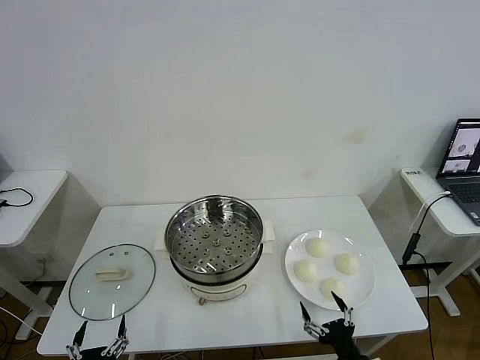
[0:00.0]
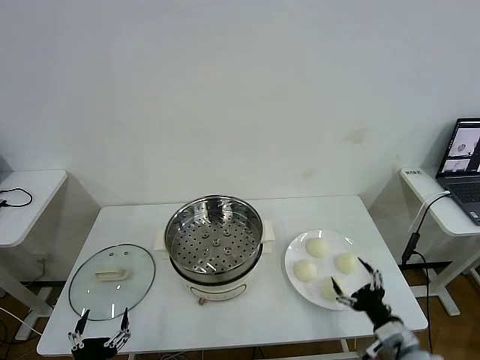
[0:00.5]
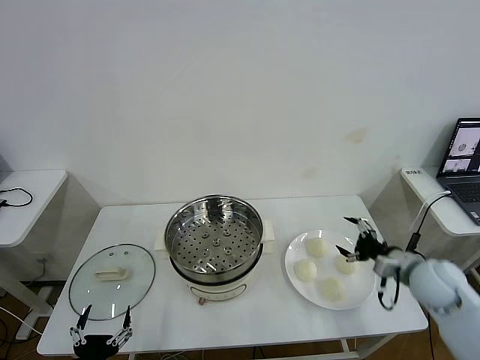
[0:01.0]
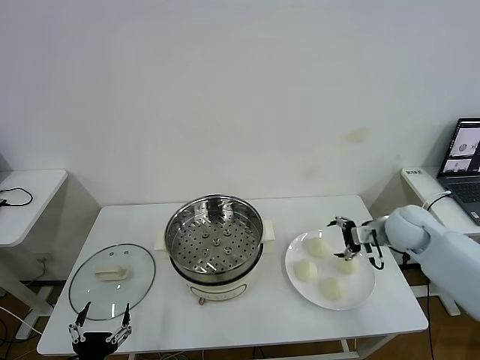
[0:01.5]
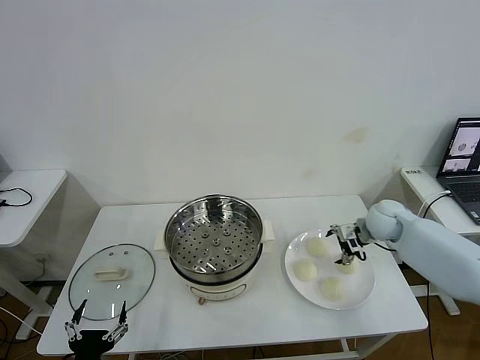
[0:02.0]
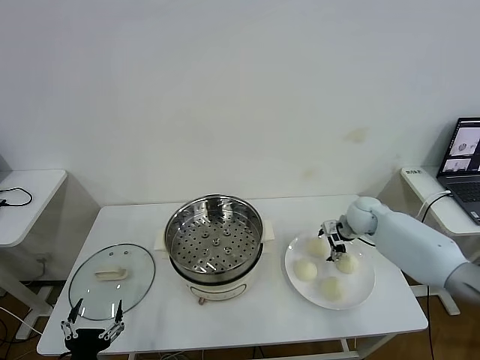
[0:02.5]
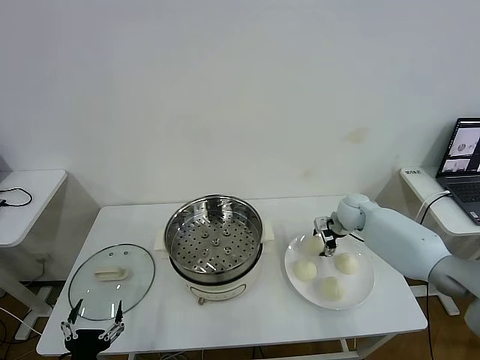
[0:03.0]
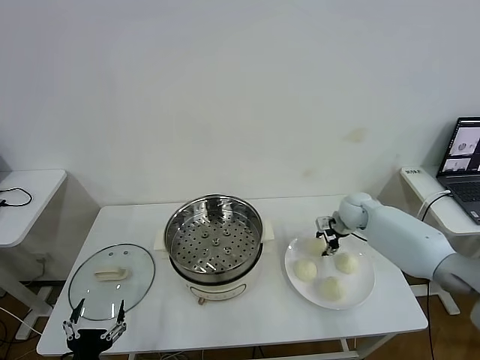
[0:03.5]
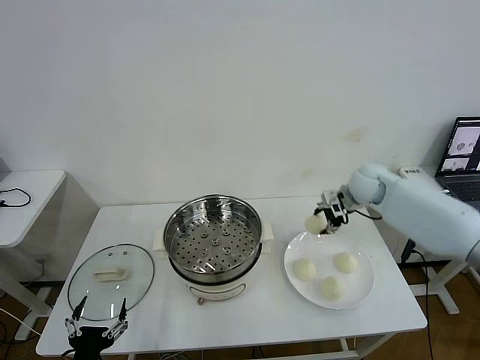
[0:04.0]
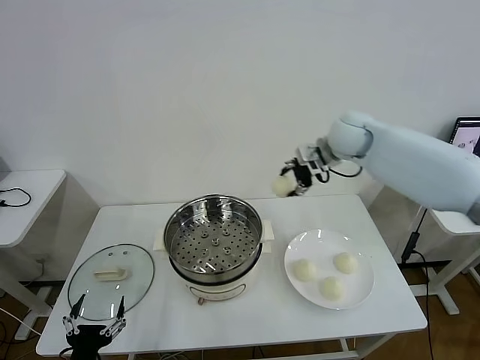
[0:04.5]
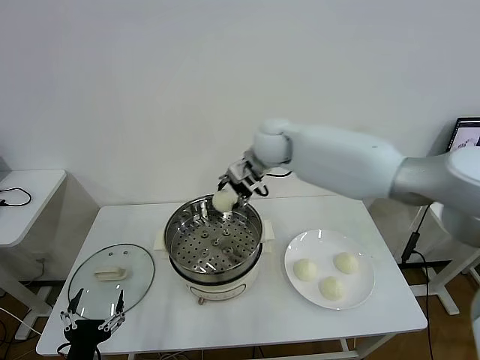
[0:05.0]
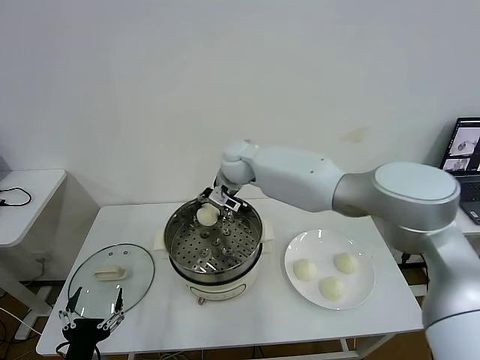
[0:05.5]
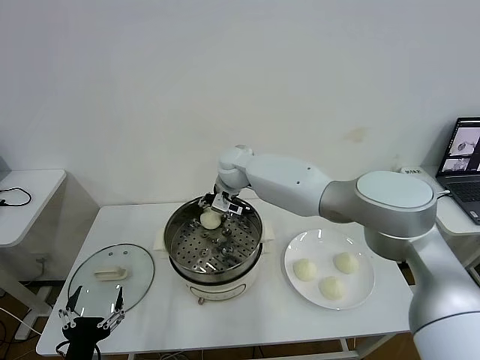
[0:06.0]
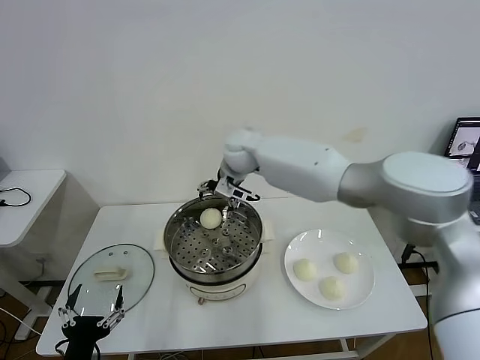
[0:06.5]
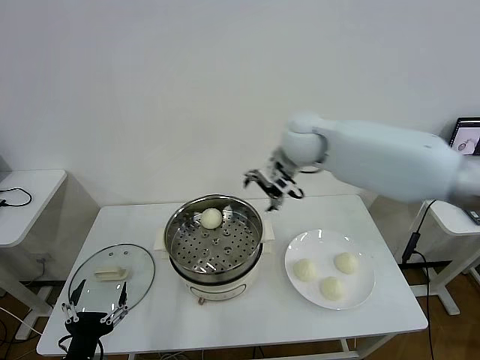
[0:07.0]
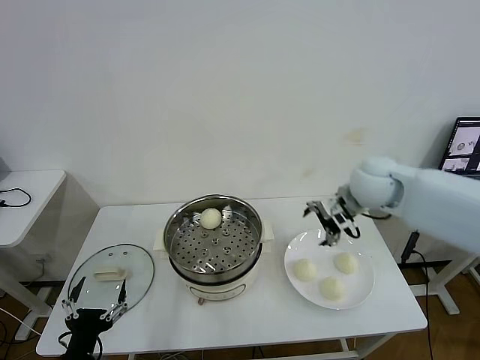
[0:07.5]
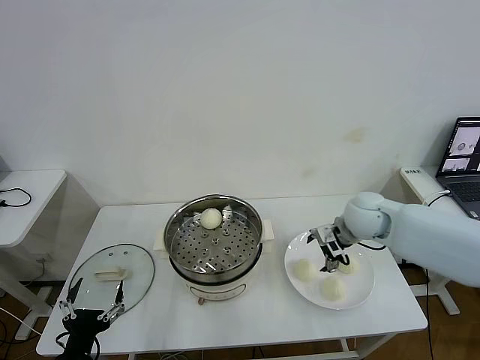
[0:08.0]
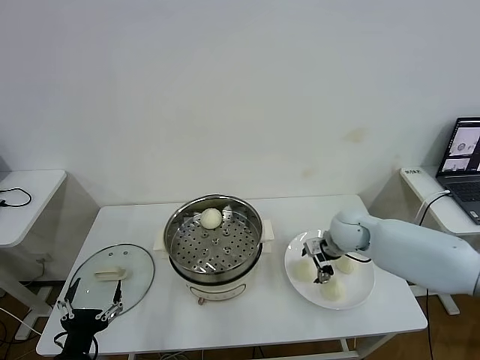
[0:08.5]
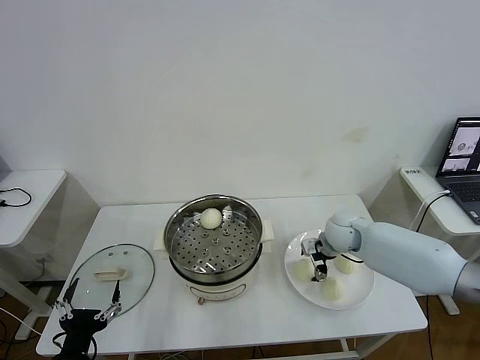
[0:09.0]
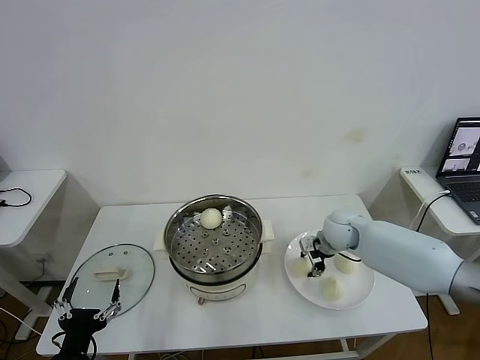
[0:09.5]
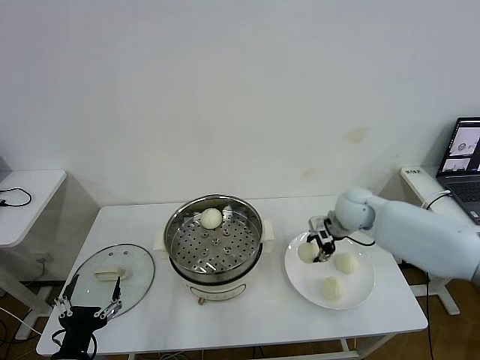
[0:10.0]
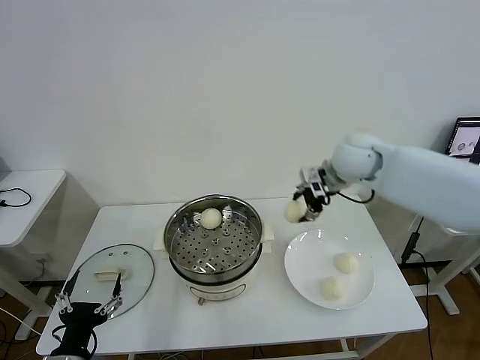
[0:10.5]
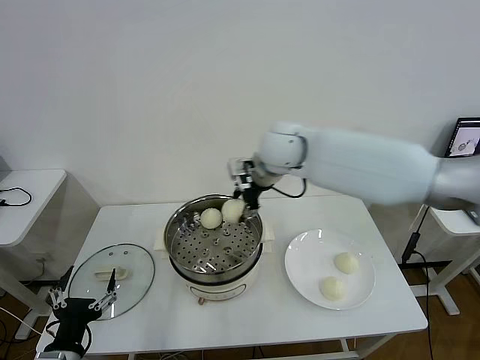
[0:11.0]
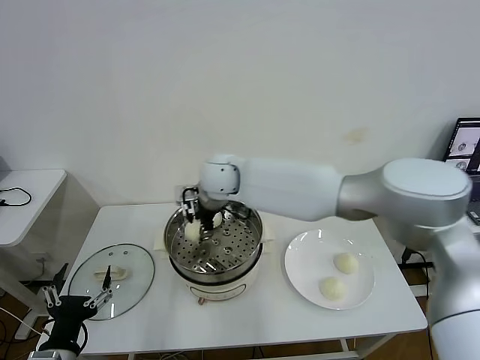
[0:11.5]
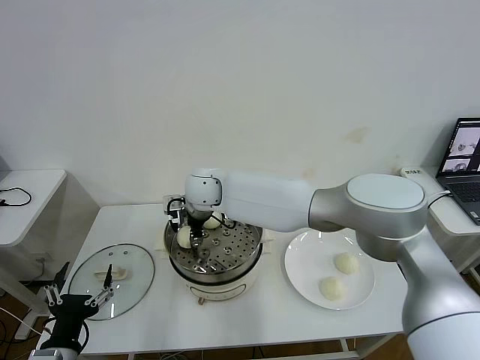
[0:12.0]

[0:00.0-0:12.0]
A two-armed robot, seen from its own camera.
Task of the whole recording: take steamed baozi put them in steamer then cover it.
Step, 0.0 to 3.0 s: Grasp the baozi in the plate with right gripper.
Step, 3.5 to 6.0 s: Place the baozi on the steamer with right gripper.
Step, 6.5 to 9.0 s: Grasp the baozi in the plate with right gripper.
2.0 to 4.0 s: The right gripper travels upward and forward by about 10 cm, and closes.
4.0 to 6.0 s: The right gripper moves to the left, approximately 30 cm.
6.0 to 8.0 s: The right gripper heads to the right and backward, covering some 30 cm, and opens up.
8.0 to 10.0 s: The right gripper moves approximately 10 cm downward and comes back, and closes up.
10.0 to 12.0 s: The right gripper travels to the left by some 35 cm.

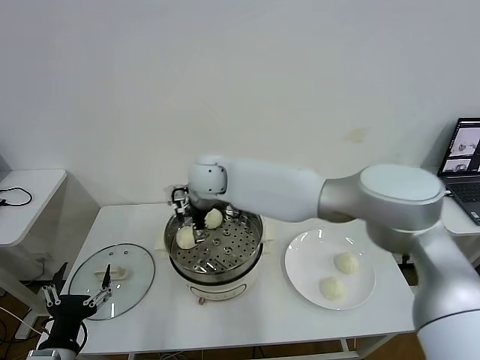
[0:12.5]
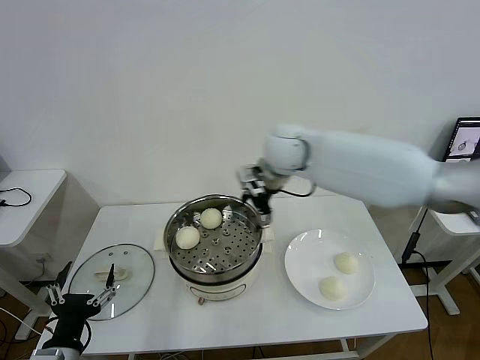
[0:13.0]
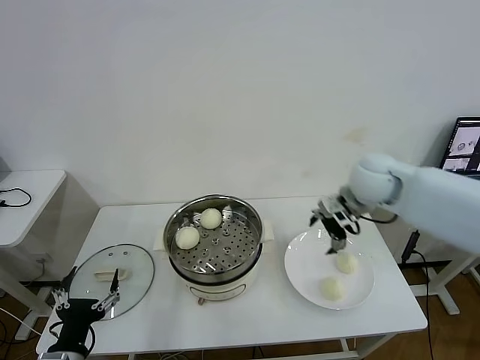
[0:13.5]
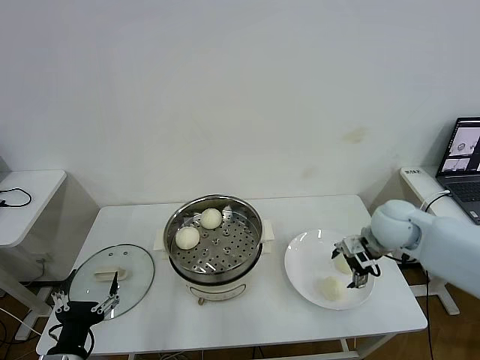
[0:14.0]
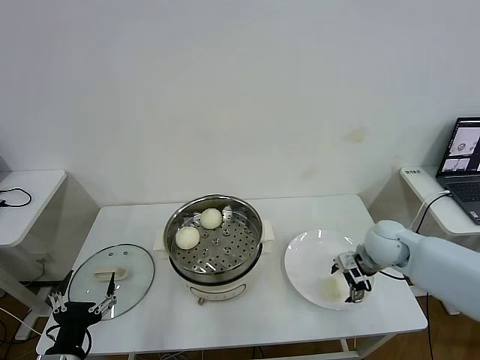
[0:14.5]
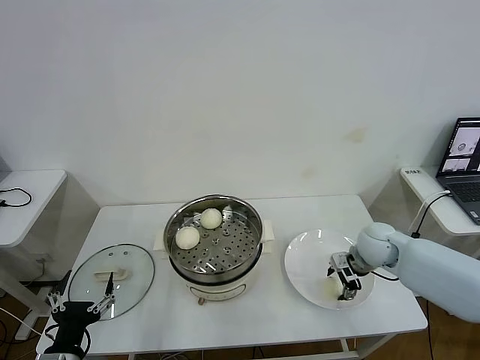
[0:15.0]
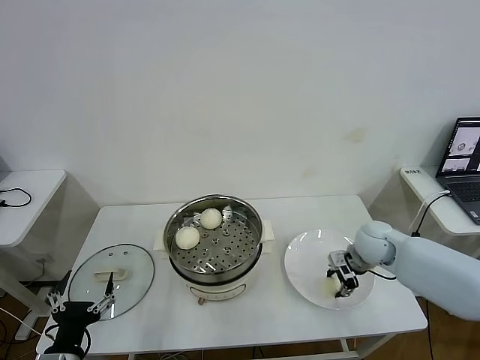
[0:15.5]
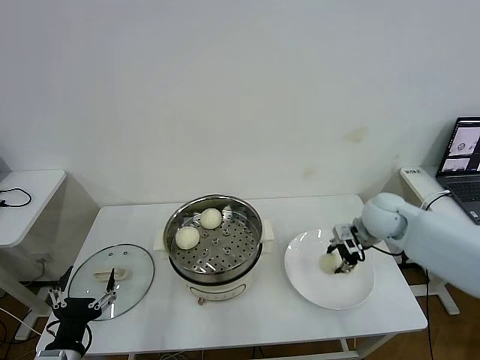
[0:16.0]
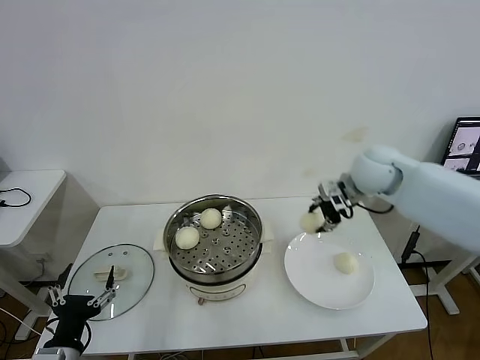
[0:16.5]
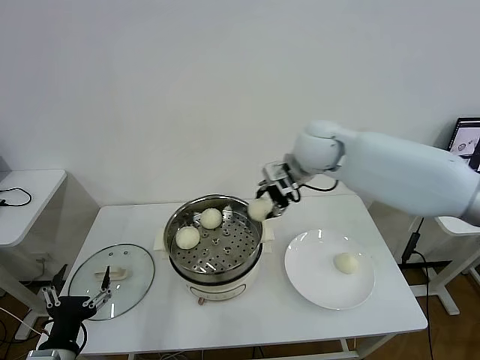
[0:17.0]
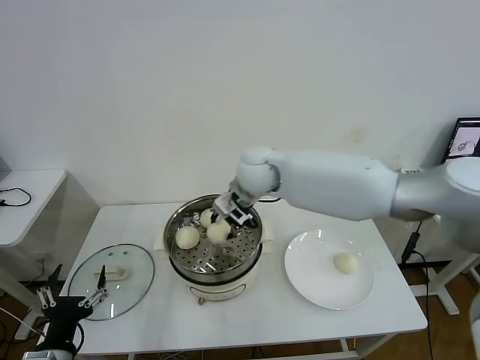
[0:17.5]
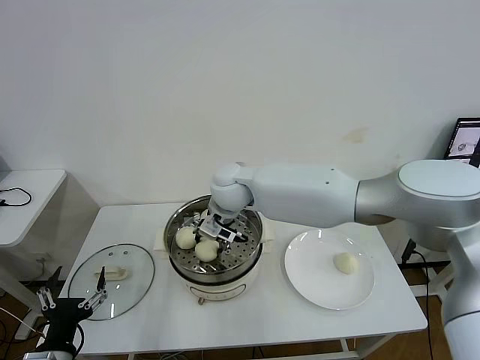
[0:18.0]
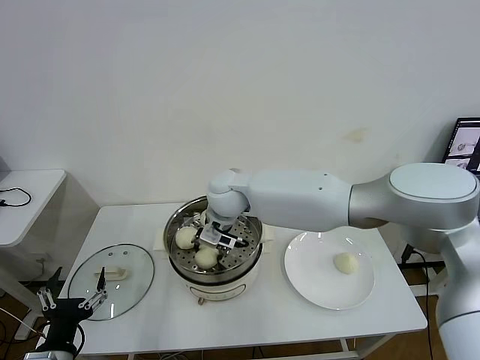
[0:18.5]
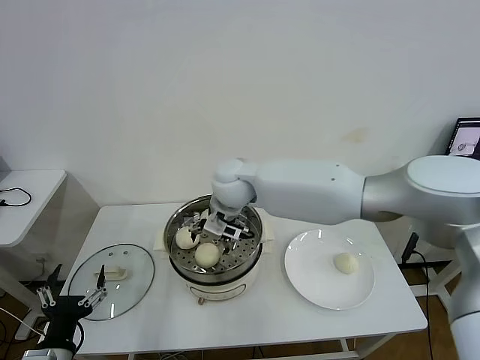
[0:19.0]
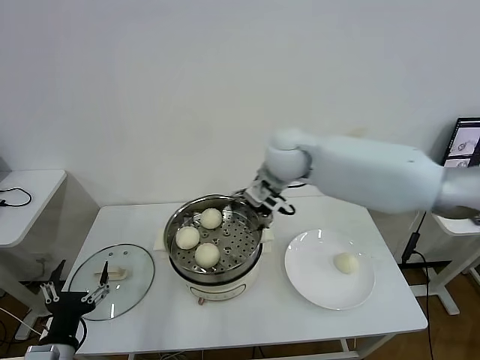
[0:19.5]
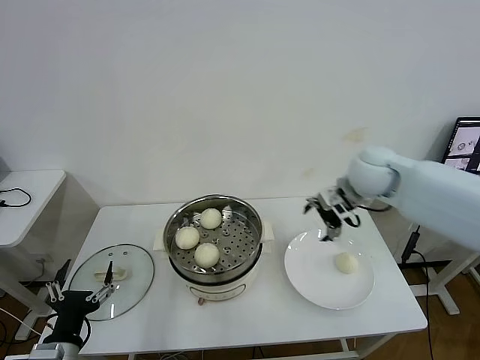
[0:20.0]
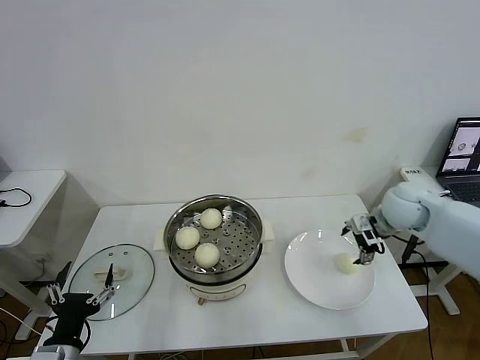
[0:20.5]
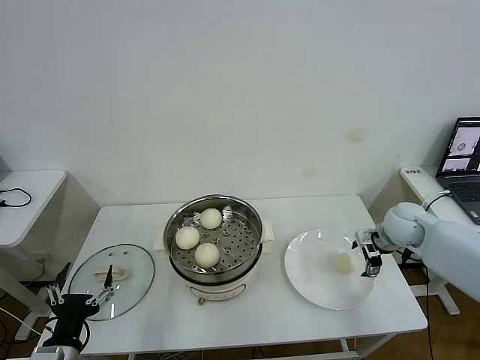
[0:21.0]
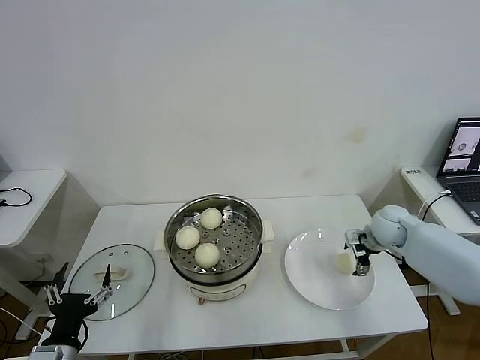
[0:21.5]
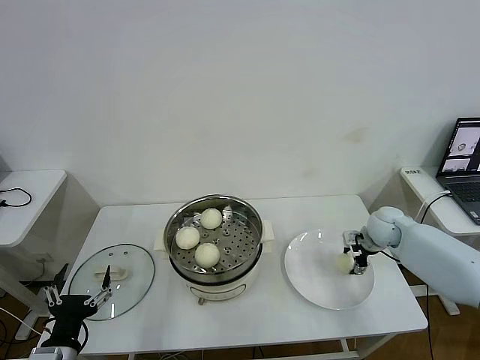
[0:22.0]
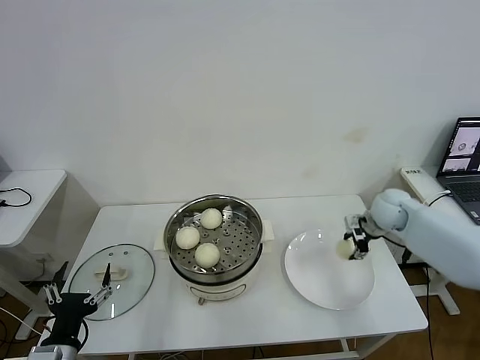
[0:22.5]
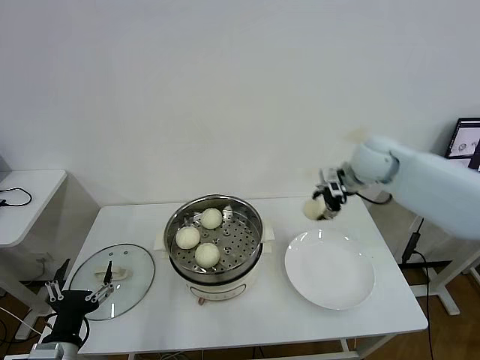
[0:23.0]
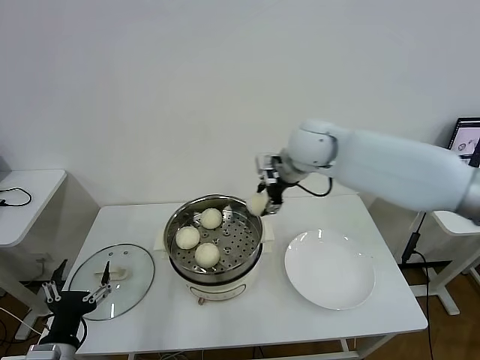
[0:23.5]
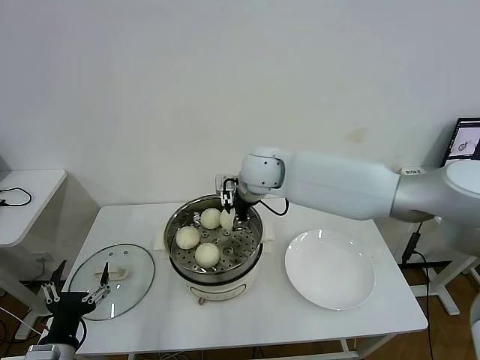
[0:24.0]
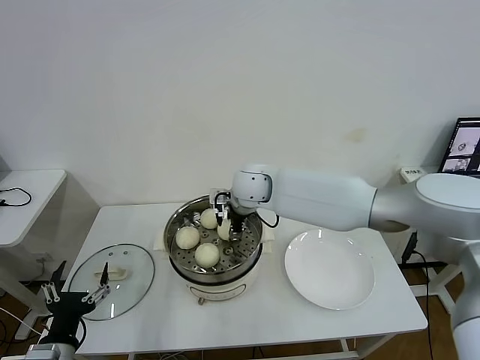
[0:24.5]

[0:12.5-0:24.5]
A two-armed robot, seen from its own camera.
Task of the whole recording: take steamed baozi put them in steamer then cover it.
Step, 12.5 to 15.0 s: Grasp the baozi in the plate with right gripper.
Step, 15.5 to 18.5 s: Place the baozi on the steamer with right gripper.
Step, 19.0 to 22.0 s: Grasp the baozi in the plate with right gripper.
12.5 to 14.5 s: The right gripper goes roughly 40 cm to the right.
14.5 to 16.5 s: The right gripper moves upward and forward, approximately 20 cm, and closes.
16.5 to 18.5 s: The right gripper goes about 30 cm to the left.
18.5 to 20.5 s: The right gripper shifts some 40 cm to the right, and opens up.
20.5 to 22.5 s: The right gripper is displaced downward by some 5 cm, and closes its fingers.
22.5 to 24.5 s: The right gripper travels to the left by approximately 35 cm.

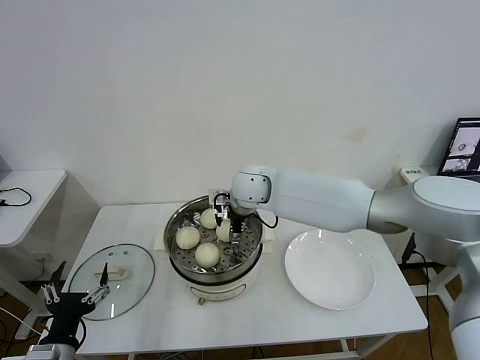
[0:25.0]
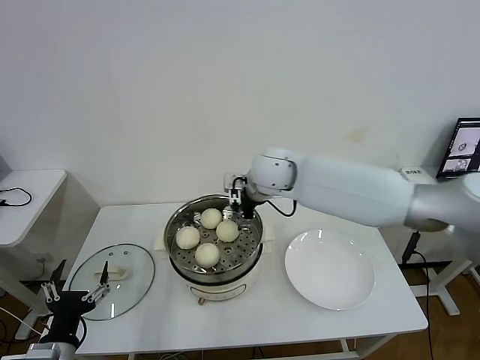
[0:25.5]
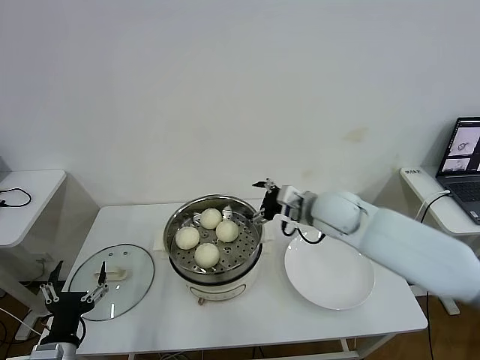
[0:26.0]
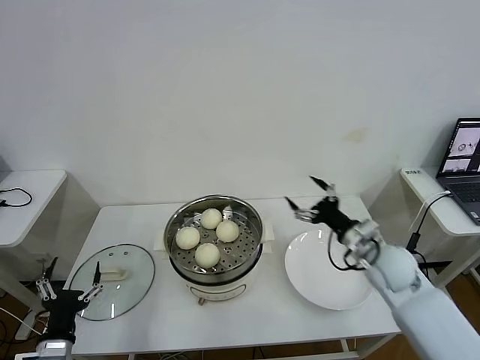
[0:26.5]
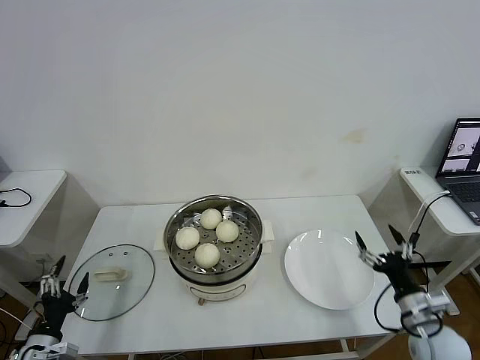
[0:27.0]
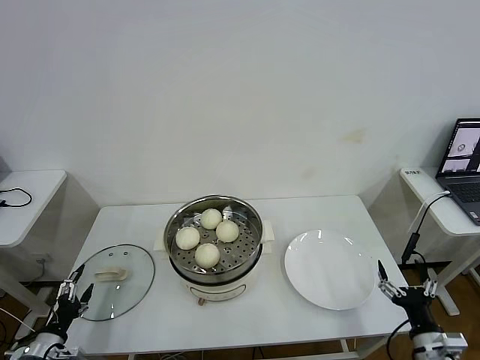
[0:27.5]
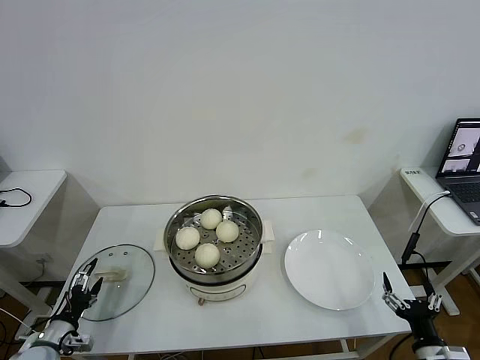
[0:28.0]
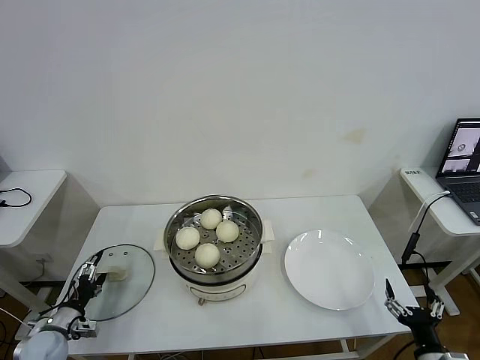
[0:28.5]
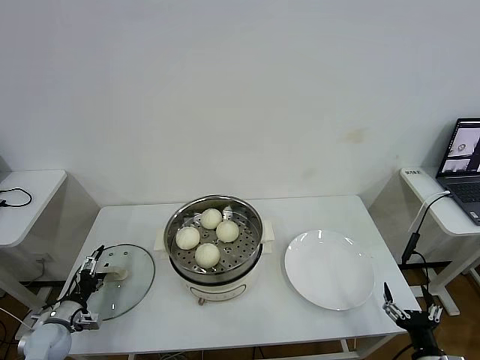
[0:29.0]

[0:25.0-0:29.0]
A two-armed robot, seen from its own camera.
Task of the whole recording: take steamed baozi put them in steamer then cover it.
25.0 to 27.0 s: The left gripper goes approximately 10 cm to the left and downward, while the right gripper shifts about 50 cm to the right, backward and downward.
27.0 to 29.0 s: The right gripper heads backward and downward, covering roughly 15 cm. Meanwhile the left gripper shifts approximately 10 cm forward and downward.
